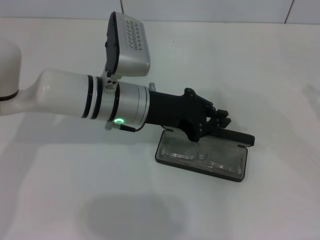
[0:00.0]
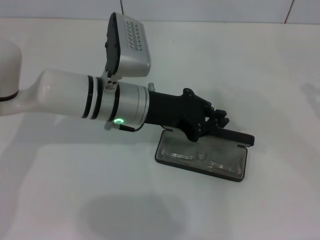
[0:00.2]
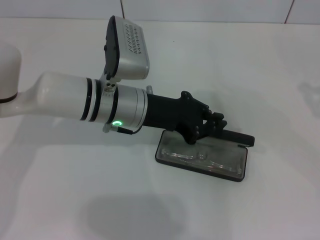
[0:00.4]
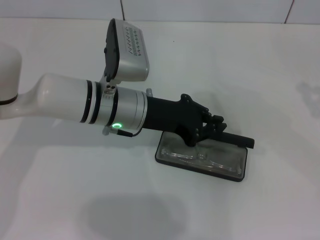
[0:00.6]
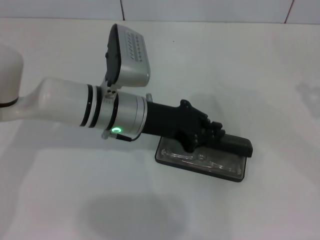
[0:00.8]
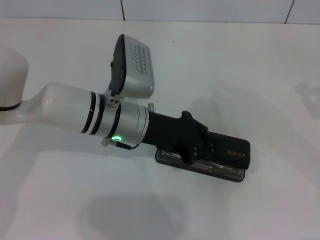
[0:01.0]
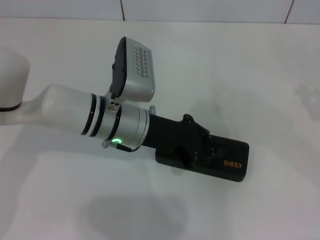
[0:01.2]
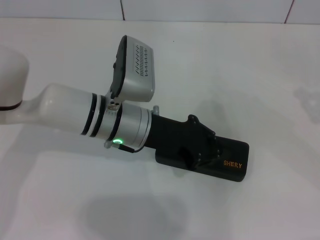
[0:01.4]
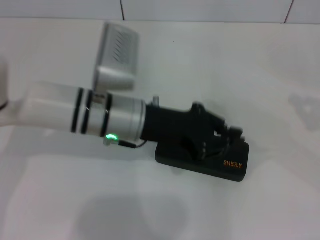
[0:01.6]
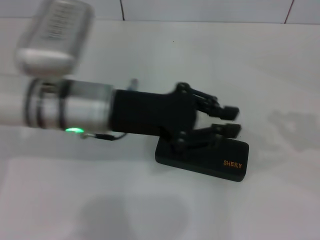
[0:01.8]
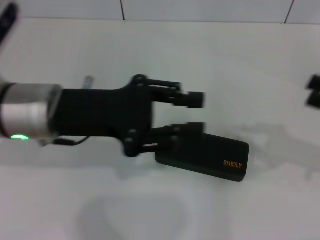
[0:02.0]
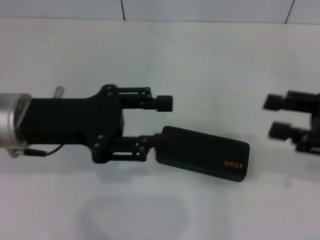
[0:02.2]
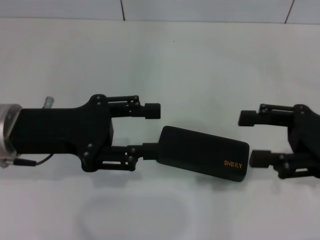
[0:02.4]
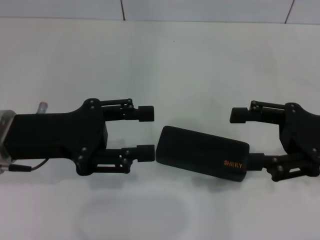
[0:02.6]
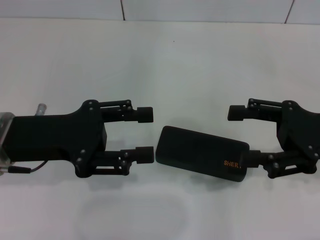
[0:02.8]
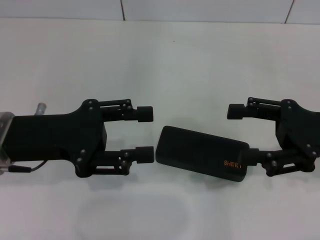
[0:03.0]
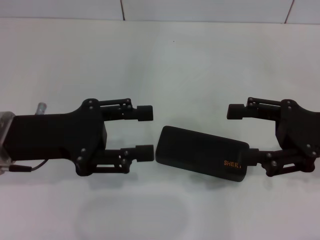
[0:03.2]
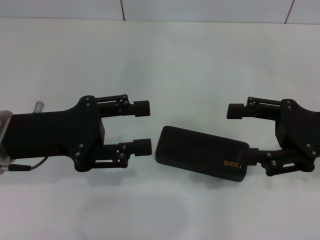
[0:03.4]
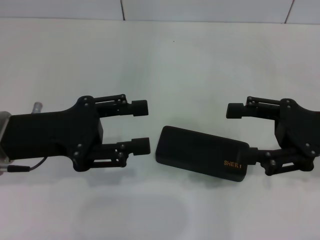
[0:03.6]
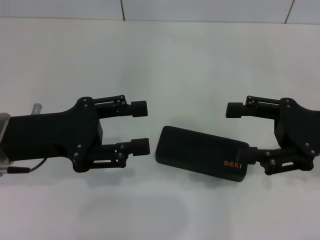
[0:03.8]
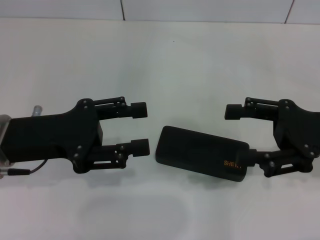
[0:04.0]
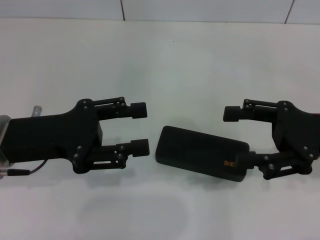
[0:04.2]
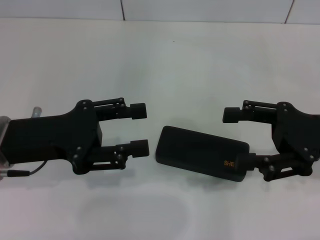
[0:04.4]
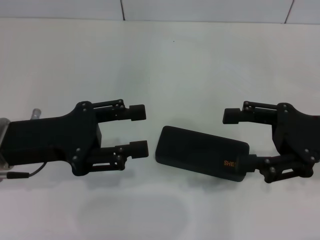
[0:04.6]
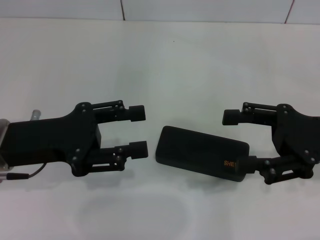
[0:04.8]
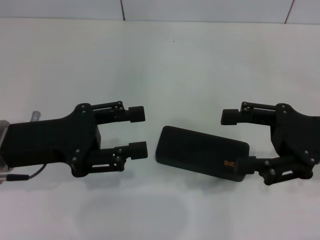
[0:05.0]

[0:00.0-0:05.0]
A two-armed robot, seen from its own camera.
0:00.0 to 0:01.6: The grippers stay close to where they were, moving slightly.
0:01.6 to 0:03.4: Both grippers travel together to the left, about 15 cm. The right gripper opens. The left gripper opens its fingers.
0:03.4 to 0:05.0: The two grippers keep their place.

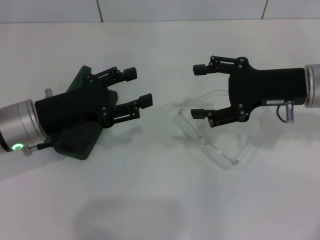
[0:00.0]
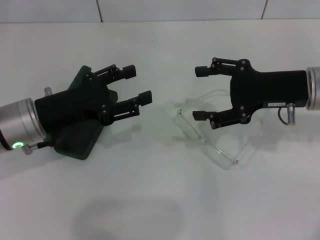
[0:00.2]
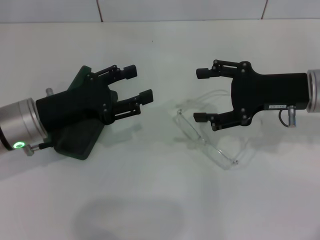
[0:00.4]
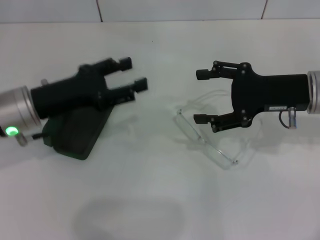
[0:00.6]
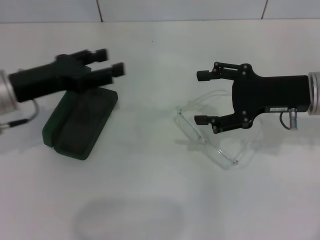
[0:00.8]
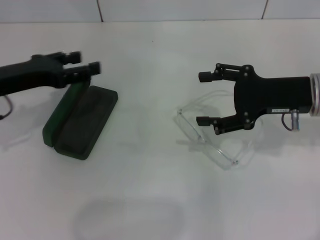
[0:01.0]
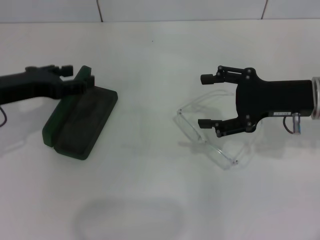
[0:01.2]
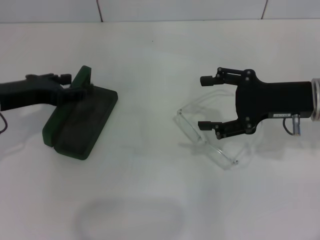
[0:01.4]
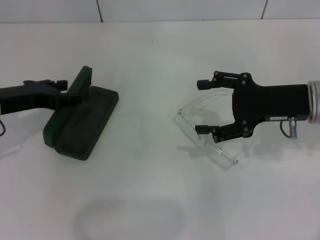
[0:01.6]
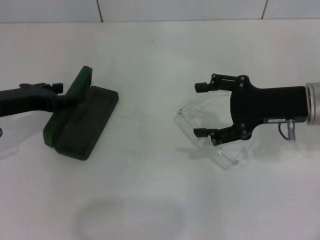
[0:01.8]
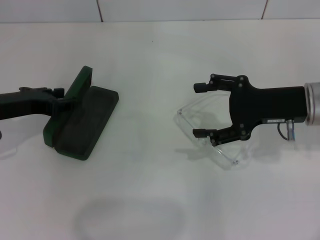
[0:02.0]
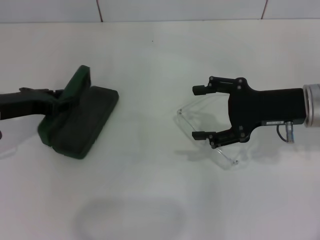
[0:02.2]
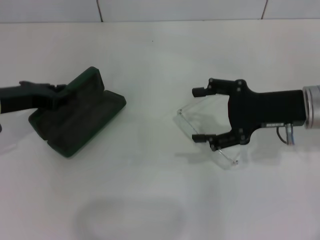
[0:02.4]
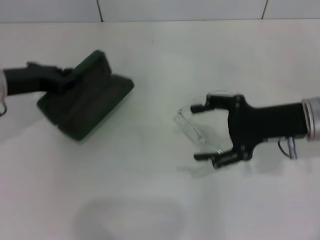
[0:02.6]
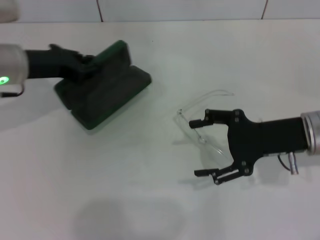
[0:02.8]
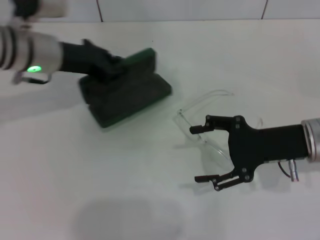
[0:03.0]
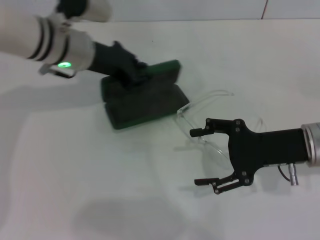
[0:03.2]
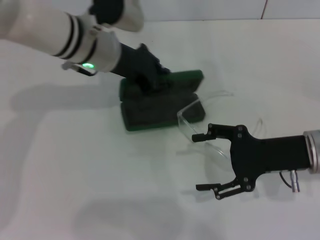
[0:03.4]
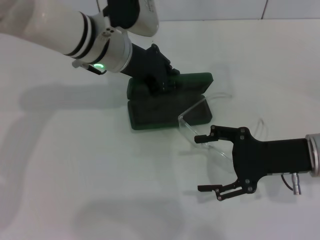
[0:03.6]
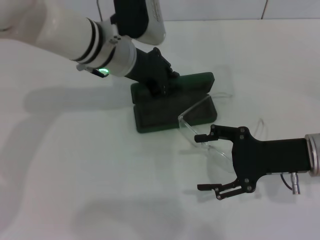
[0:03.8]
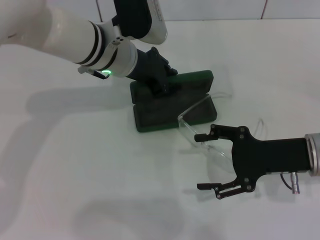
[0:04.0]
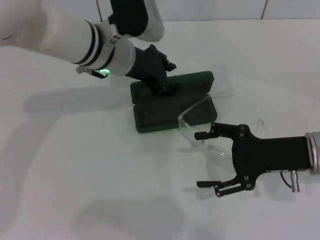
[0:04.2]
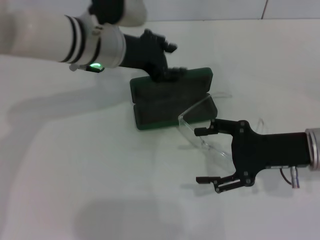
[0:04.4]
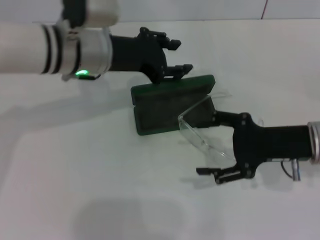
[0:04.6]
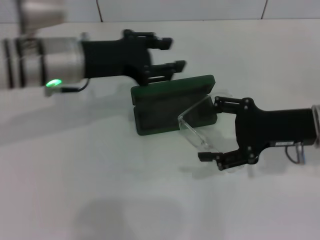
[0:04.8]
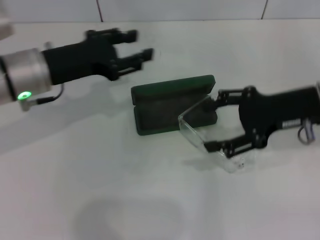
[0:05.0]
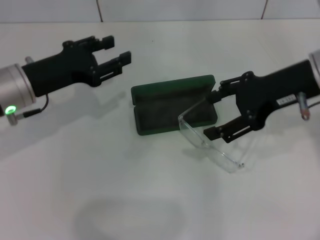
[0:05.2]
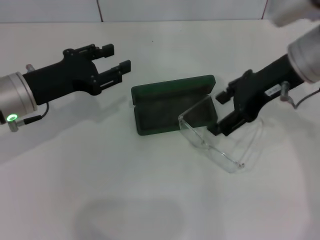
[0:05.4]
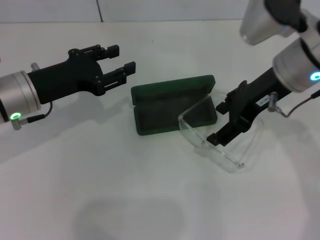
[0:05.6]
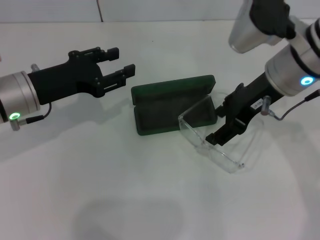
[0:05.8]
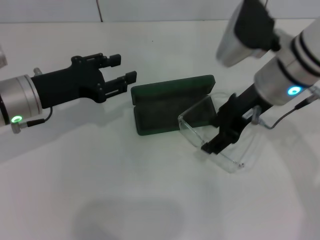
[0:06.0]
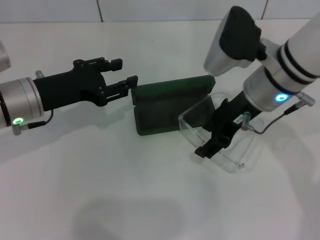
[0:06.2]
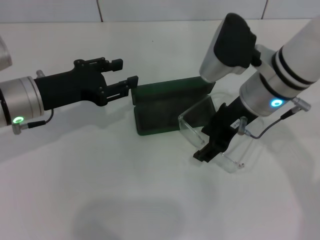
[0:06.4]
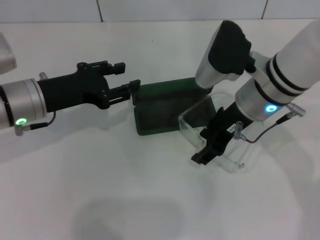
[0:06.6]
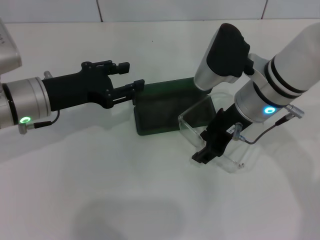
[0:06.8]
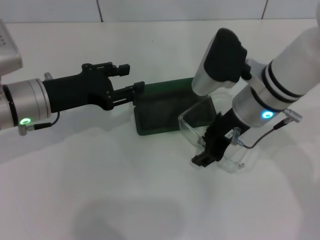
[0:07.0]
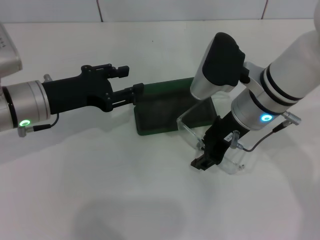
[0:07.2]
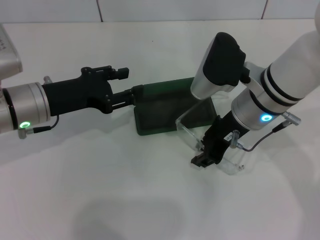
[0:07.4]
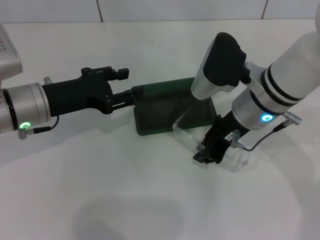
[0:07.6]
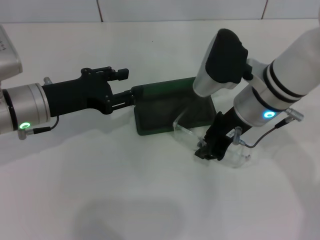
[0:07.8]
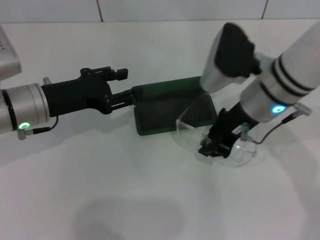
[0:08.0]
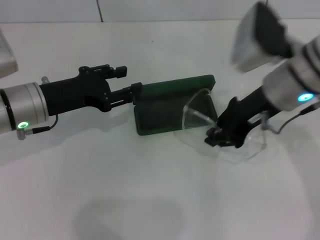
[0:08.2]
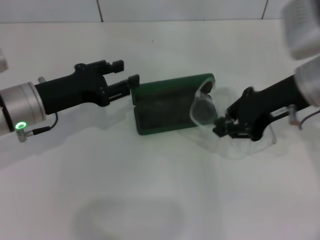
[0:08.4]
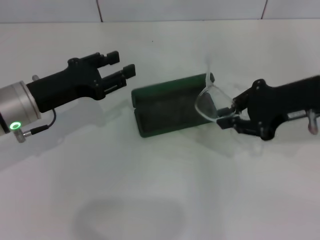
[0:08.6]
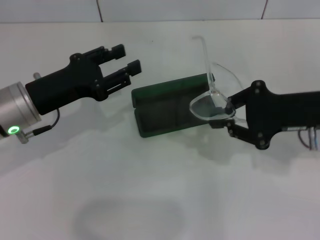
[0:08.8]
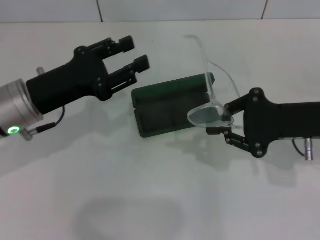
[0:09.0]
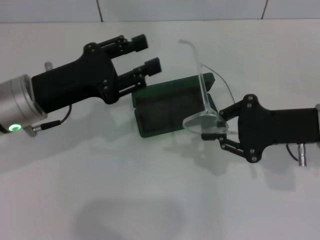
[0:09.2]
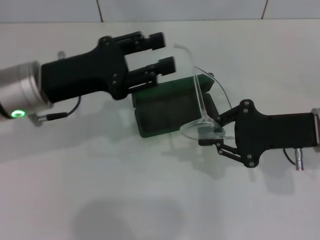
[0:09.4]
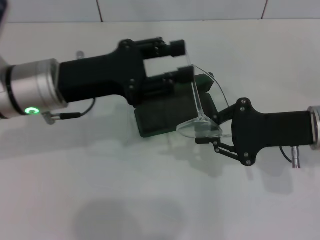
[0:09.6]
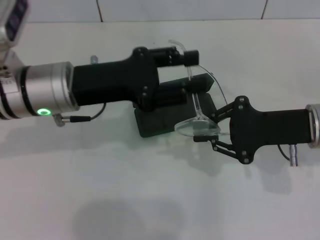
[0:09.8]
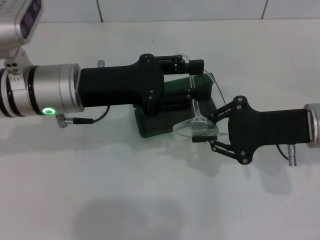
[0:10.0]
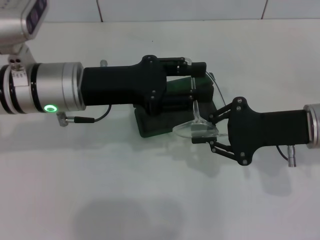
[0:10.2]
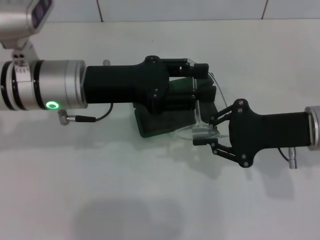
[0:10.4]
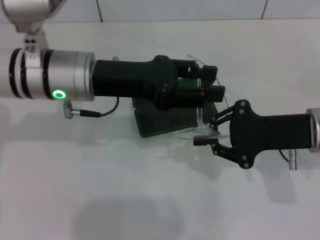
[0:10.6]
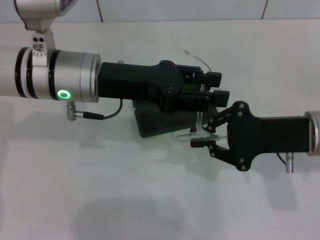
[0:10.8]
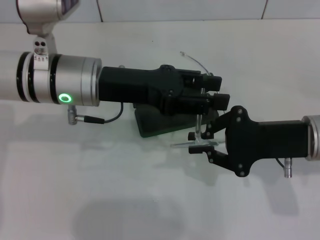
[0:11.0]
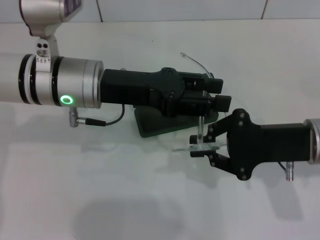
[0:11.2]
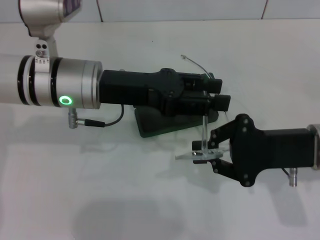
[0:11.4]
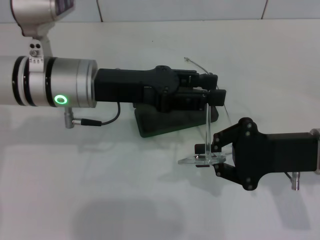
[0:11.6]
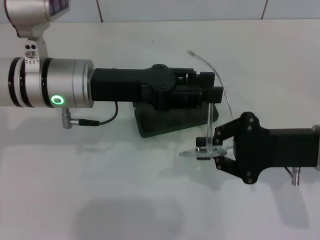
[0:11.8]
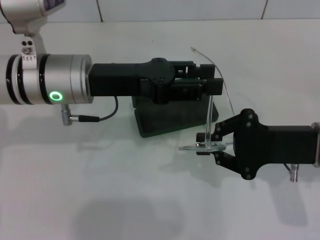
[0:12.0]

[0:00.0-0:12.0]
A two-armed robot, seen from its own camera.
Step, 0:00.0 to 0:02.0: Grab the glasses case with your left hand.
Step, 0:02.2 to 0:04.0: Place the glasses case in the center of the table with your left hand.
Step, 0:04.4 to 0:07.4: Grab the eyeglass frame with your right hand.
0:00.0 to 0:01.6: The left gripper travels to the left by roughly 5 cm.
0:01.6 to 0:03.0: The left gripper shifts about 10 cm to the right and forward, and closes up.
0:03.0 to 0:04.4: The left gripper goes about 10 cm to the right, and opens up.
0:04.4 to 0:06.0: The left gripper heads to the left, backward and downward, covering approximately 15 cm. The right gripper is displaced upward, to the left and forward by approximately 15 cm.
0:06.0 to 0:07.6: The right gripper closes its fingers.
0:07.6 to 0:09.0: The right gripper moves to the right, some 10 cm.
0:09.0 to 0:10.4: The left gripper moves to the right, some 5 cm.
0:10.4 to 0:12.0: The grippers stay close to where they were, moving slightly.

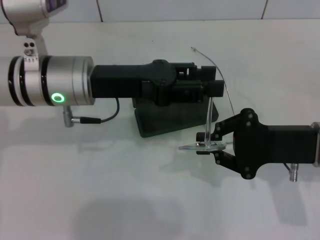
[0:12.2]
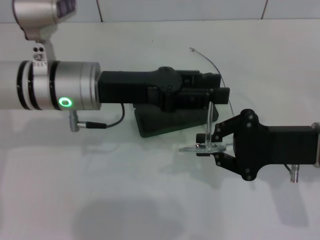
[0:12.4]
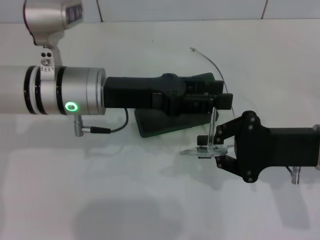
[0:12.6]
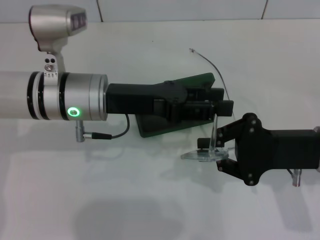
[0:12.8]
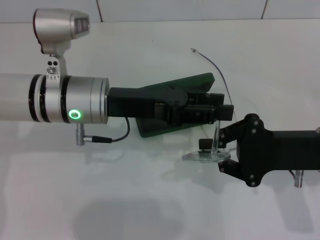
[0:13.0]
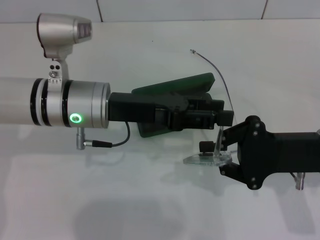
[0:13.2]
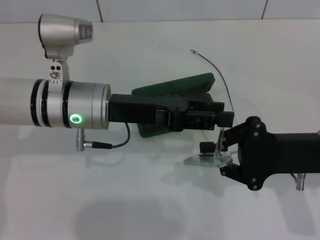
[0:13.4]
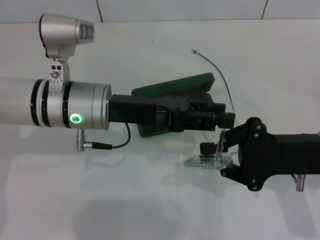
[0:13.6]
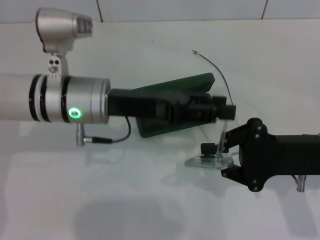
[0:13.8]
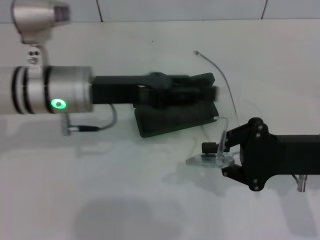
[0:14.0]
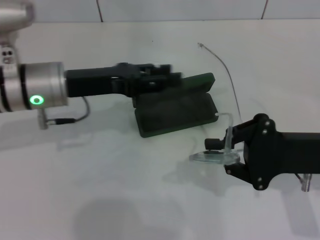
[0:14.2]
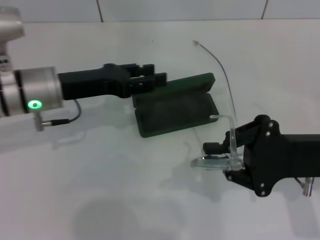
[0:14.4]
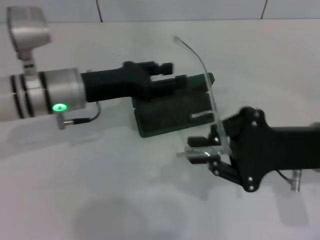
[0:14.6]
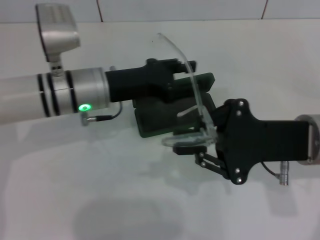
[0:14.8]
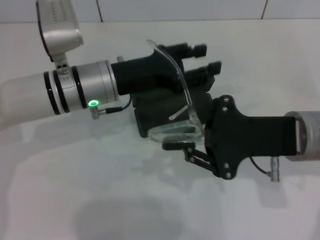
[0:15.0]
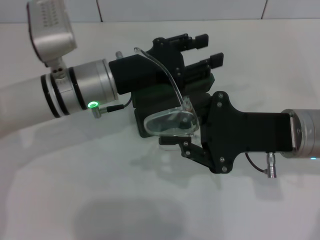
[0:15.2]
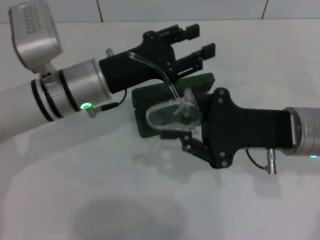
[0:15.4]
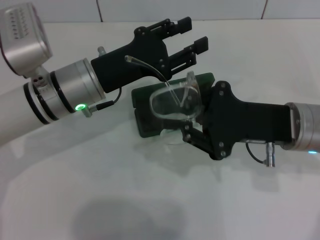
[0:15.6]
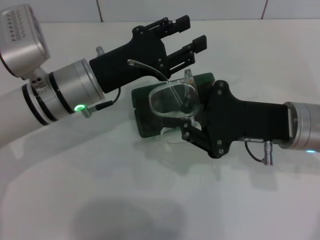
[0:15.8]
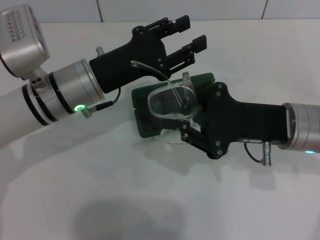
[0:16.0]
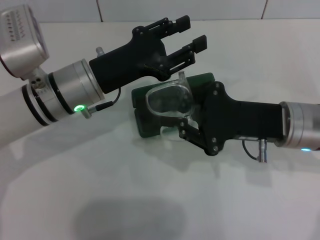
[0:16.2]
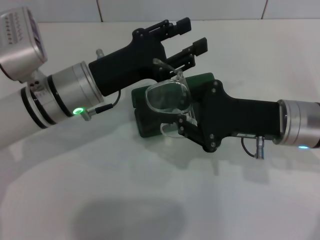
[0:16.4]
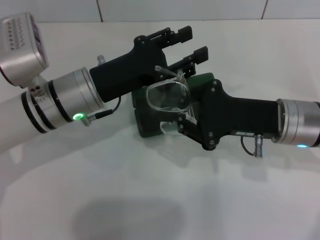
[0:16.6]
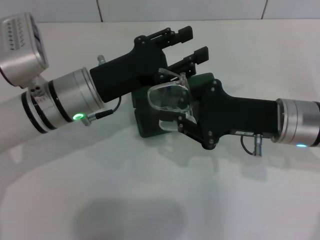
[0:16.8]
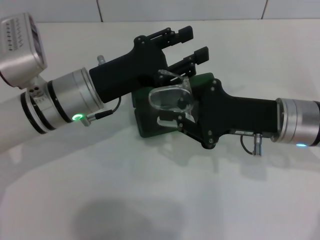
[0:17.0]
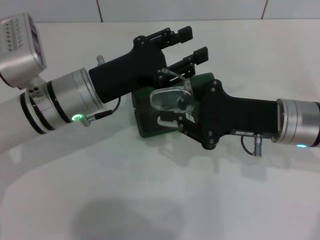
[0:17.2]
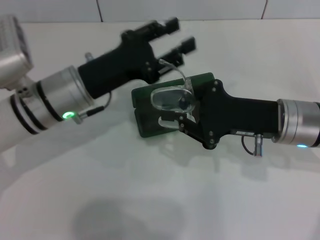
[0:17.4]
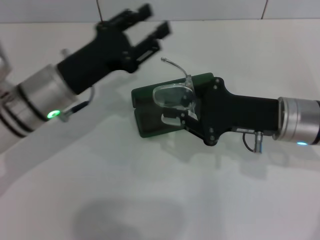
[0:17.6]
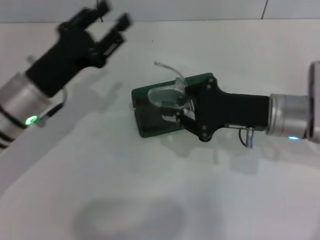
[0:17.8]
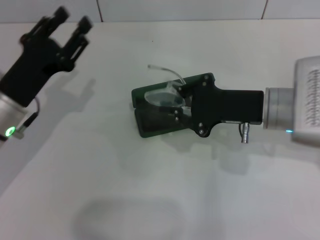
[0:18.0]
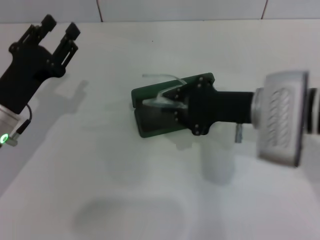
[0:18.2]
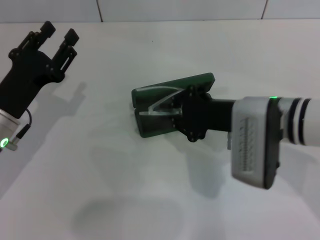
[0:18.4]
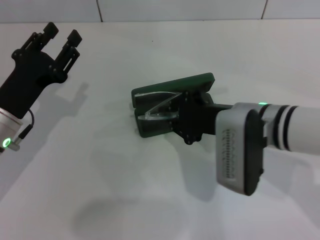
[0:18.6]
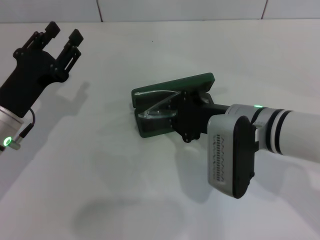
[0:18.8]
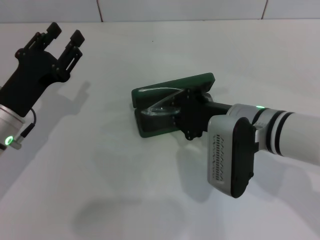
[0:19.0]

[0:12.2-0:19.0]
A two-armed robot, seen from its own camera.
Step, 0:12.2 to 0:17.2: Fold the frame with your left hand.
0:13.6 to 0:15.0: The right gripper shifts some 5 cm to the left.
0:17.6 to 0:19.0: Both grippers travel together to the left, roughly 5 cm.
